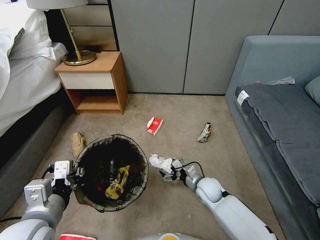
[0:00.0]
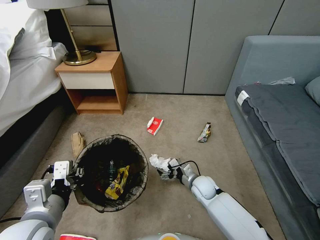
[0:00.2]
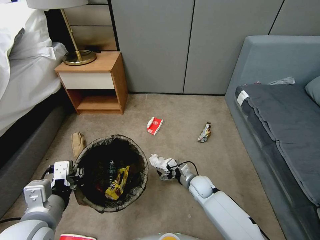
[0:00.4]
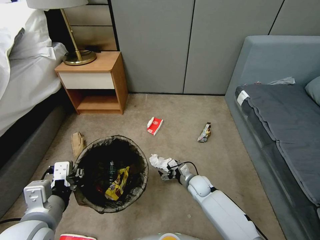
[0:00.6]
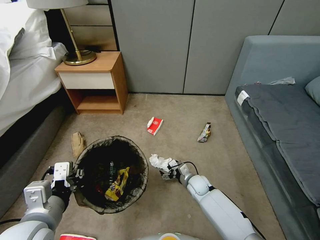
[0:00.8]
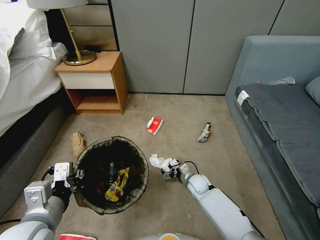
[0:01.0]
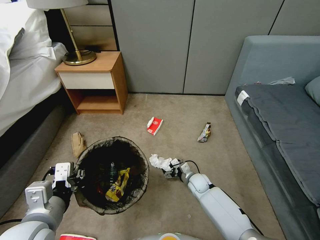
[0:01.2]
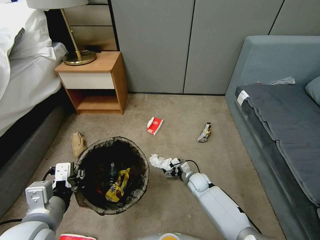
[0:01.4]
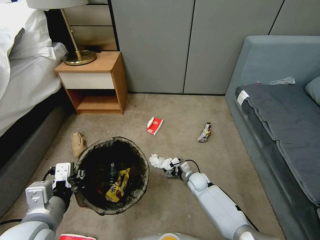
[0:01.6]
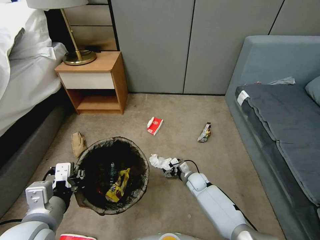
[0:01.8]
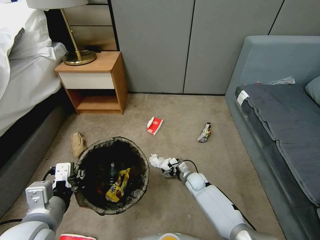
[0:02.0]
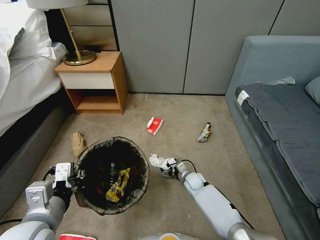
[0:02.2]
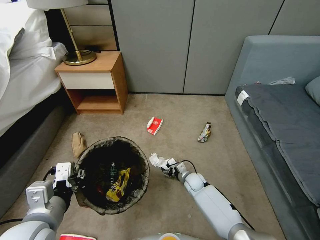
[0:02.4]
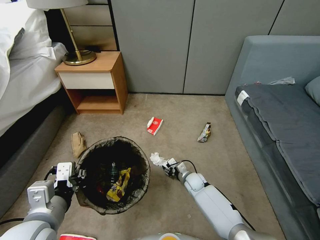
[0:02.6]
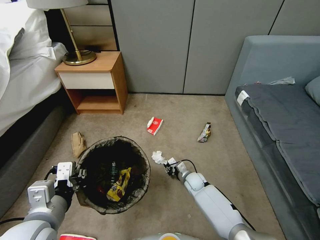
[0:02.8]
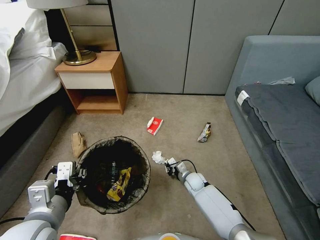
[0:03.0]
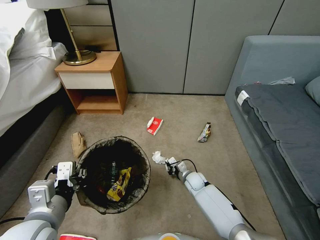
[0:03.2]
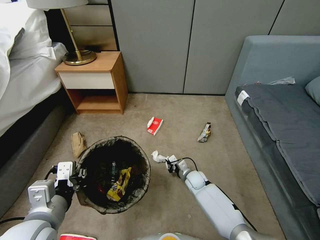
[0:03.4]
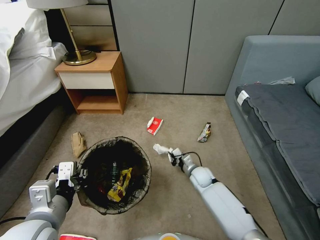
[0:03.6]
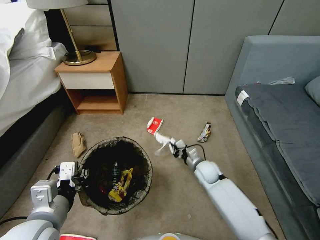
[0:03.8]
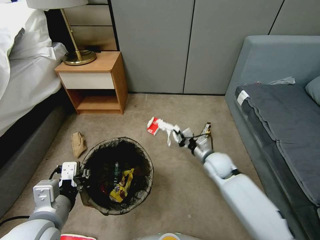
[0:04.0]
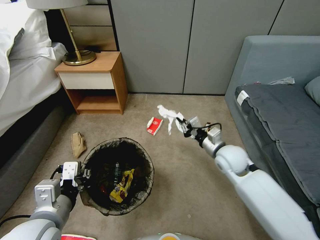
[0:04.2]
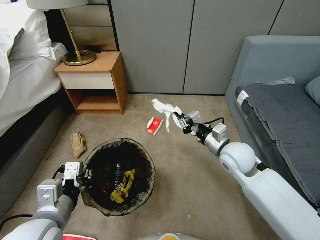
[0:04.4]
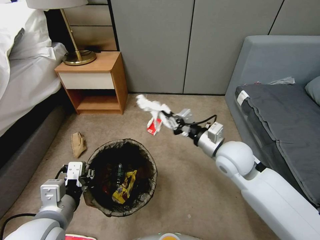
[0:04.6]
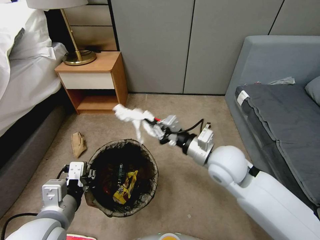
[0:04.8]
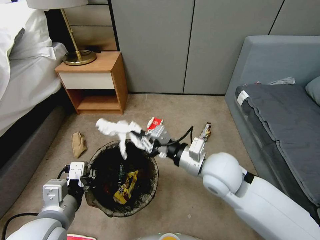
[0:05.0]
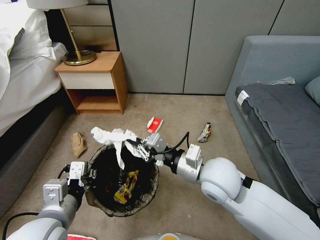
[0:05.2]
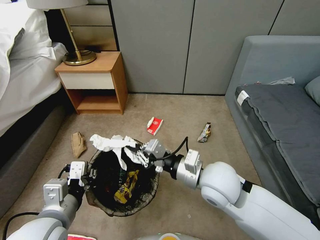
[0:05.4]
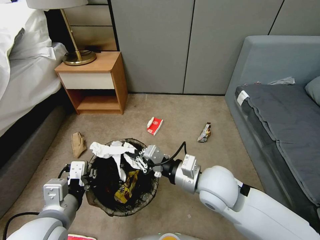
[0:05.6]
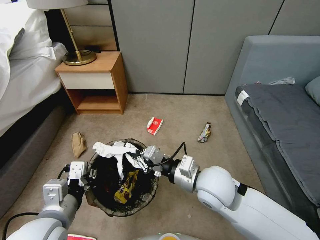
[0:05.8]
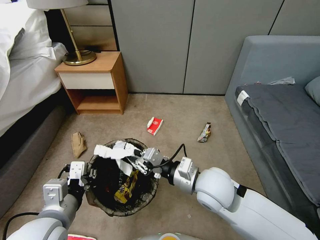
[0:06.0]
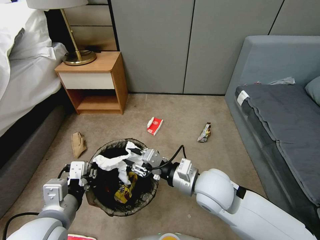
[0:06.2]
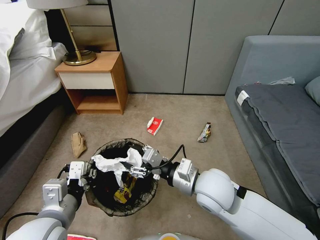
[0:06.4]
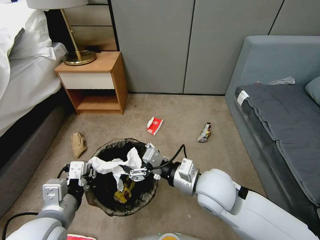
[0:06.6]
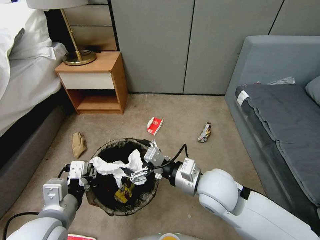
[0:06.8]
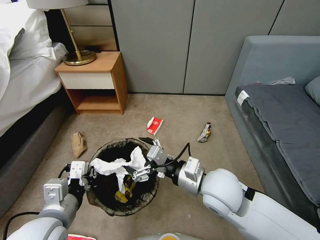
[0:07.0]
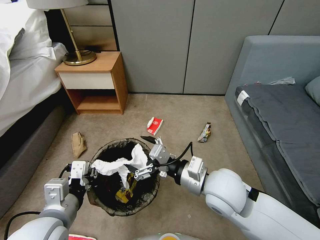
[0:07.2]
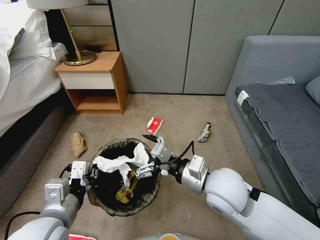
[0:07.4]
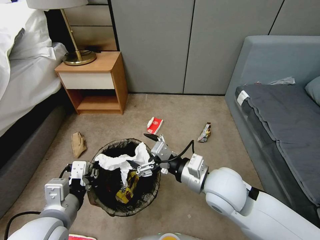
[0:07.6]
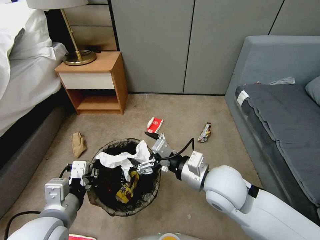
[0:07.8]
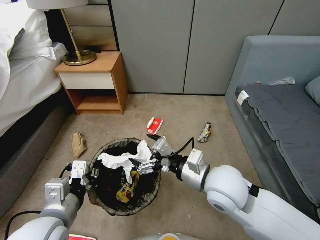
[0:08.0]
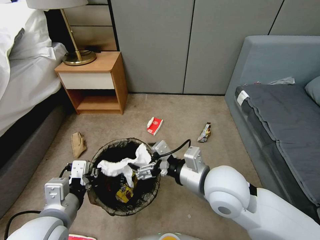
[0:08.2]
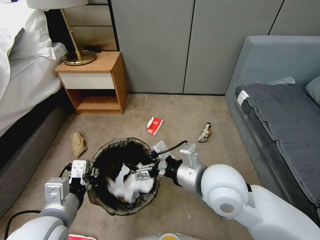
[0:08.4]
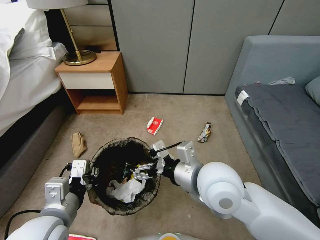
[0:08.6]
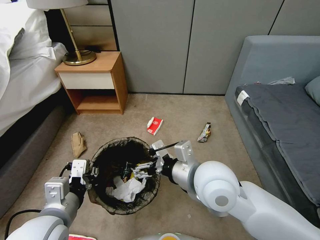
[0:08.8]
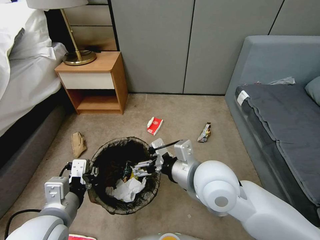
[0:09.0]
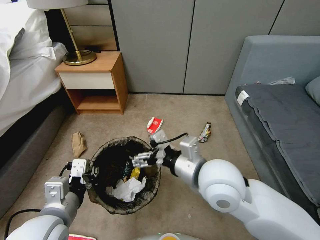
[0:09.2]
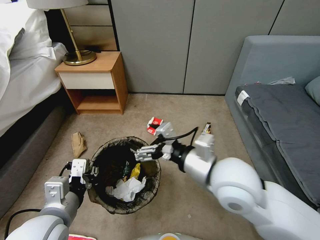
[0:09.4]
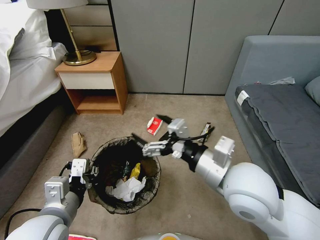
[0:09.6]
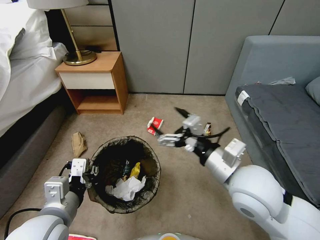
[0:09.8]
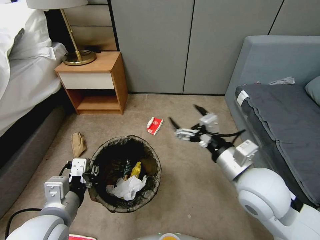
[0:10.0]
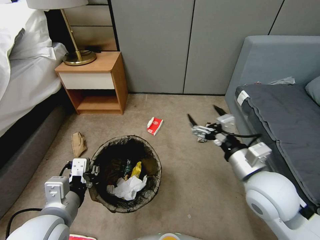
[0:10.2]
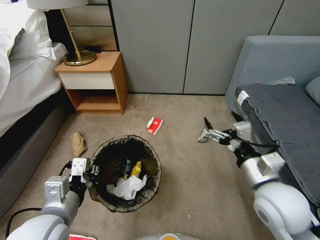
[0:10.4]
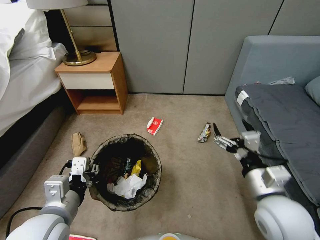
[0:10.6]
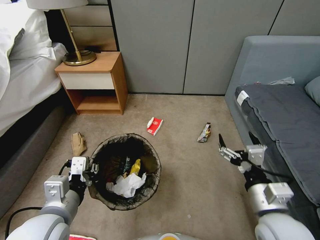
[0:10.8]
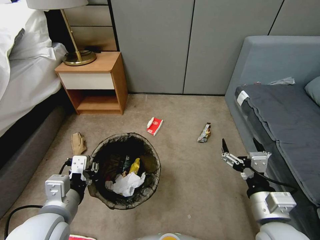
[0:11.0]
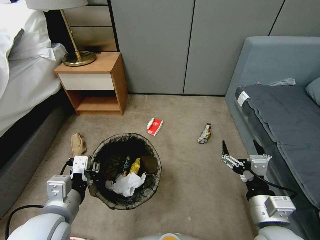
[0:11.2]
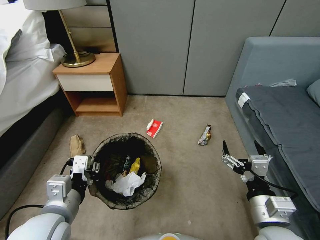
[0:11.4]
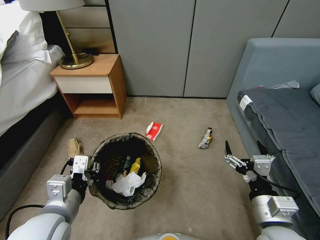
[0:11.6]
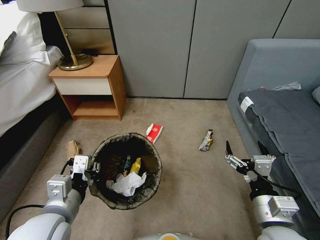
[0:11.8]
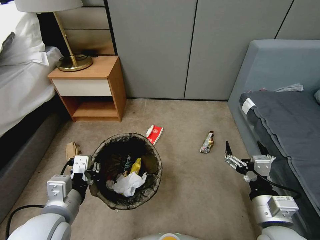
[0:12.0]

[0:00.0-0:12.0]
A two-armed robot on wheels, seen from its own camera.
Task of the whole recording: Pick up the trash bin, then pick up the garbage from the floor and place it into the trash bin.
0:00.0 to 0:01.6: The right gripper shifts approximately 10 cm downward and forward.
0:01.6 to 0:03.0: The right gripper closes its fingers.
0:03.0 to 0:04.4: The right gripper moves upward, about 30 cm.
0:04.4 to 0:06.0: The right gripper is displaced to the left and backward by about 15 cm.
0:06.0 to 0:07.6: The right gripper opens.
0:07.6 to 0:09.0: The right gripper shifts by approximately 5 cm.
0:09.0 to 0:10.4: The right gripper heads to the right, covering approximately 15 cm.
0:10.4 to 0:12.0: The right gripper is displaced backward and downward by about 10 cm.

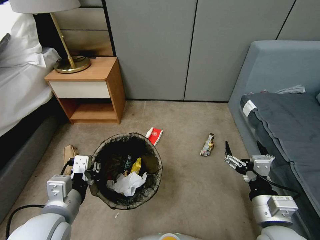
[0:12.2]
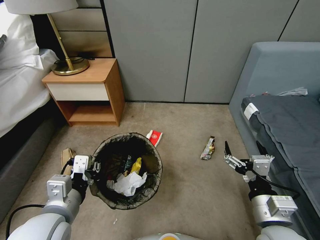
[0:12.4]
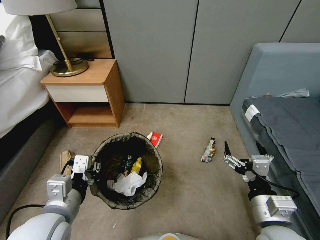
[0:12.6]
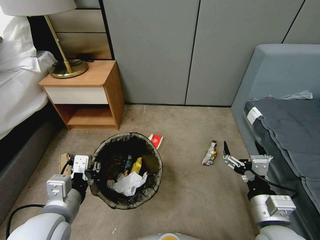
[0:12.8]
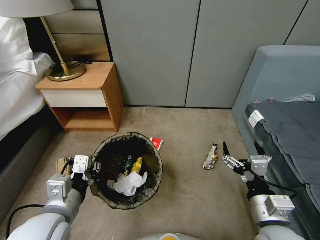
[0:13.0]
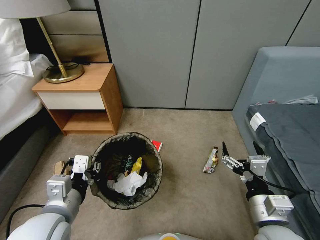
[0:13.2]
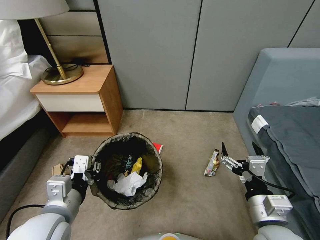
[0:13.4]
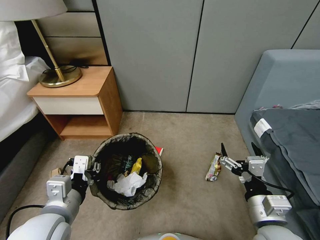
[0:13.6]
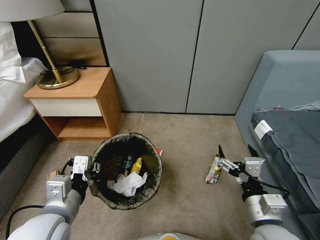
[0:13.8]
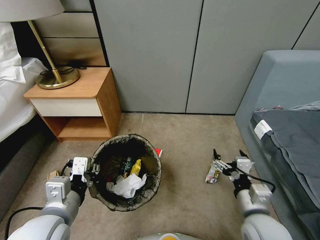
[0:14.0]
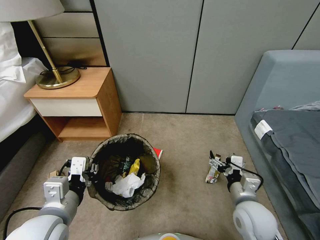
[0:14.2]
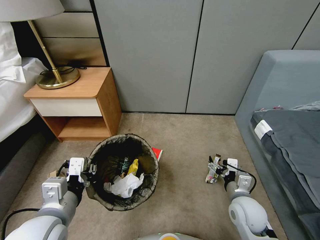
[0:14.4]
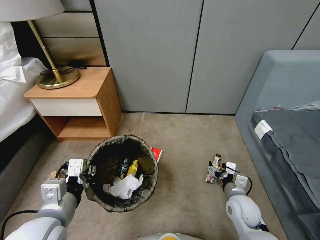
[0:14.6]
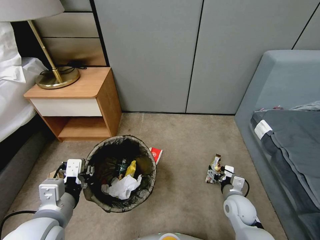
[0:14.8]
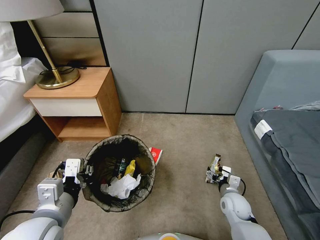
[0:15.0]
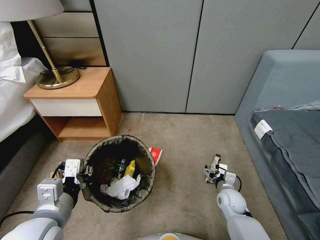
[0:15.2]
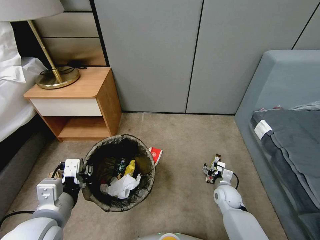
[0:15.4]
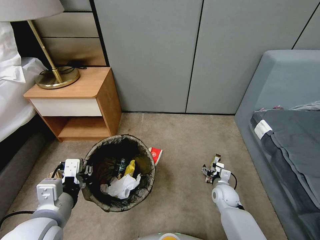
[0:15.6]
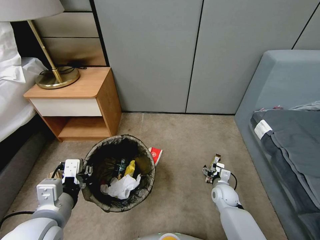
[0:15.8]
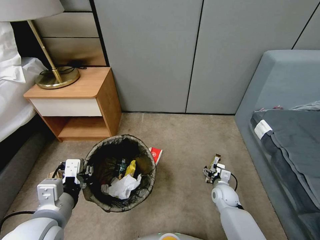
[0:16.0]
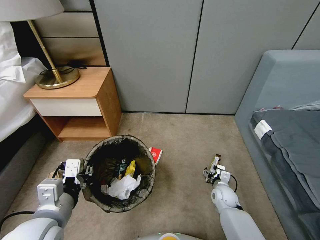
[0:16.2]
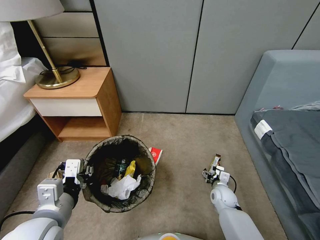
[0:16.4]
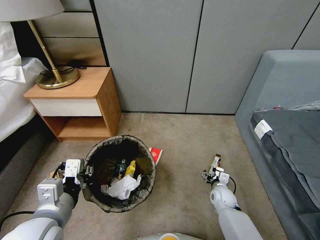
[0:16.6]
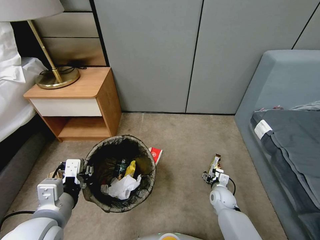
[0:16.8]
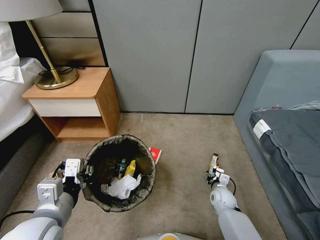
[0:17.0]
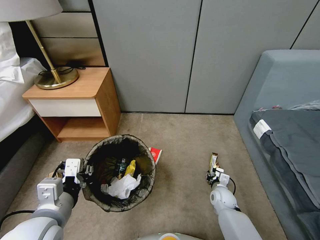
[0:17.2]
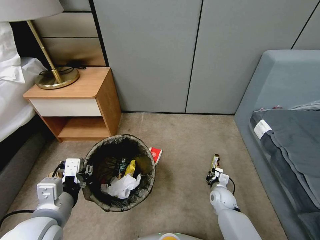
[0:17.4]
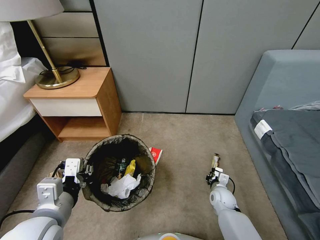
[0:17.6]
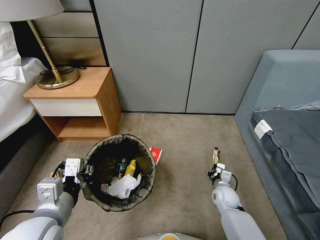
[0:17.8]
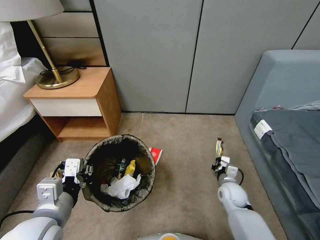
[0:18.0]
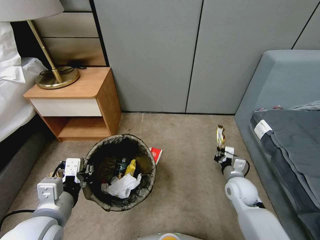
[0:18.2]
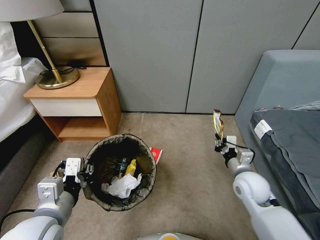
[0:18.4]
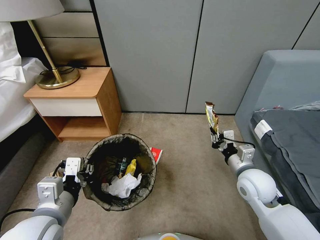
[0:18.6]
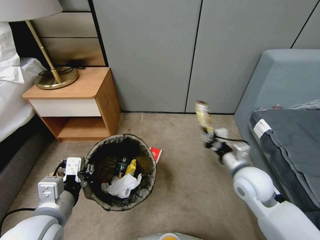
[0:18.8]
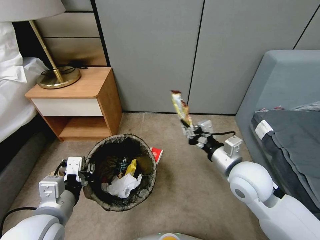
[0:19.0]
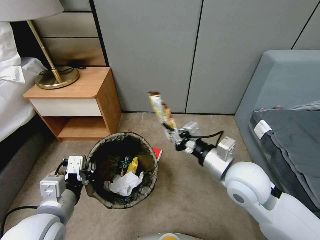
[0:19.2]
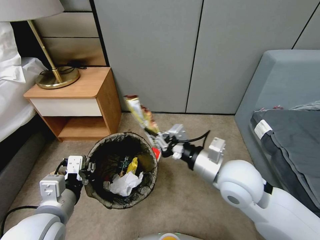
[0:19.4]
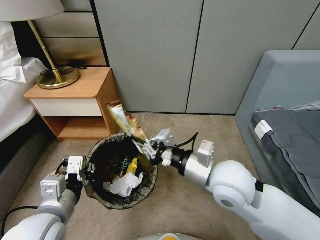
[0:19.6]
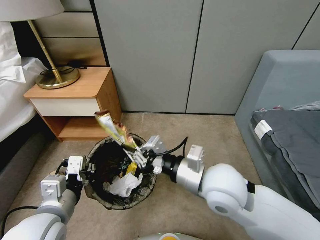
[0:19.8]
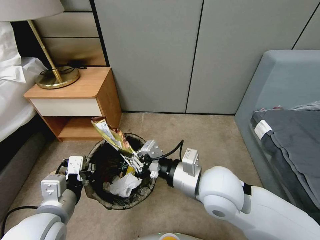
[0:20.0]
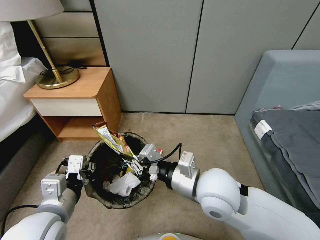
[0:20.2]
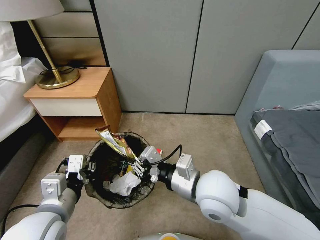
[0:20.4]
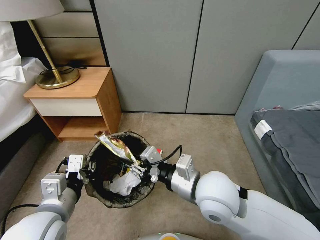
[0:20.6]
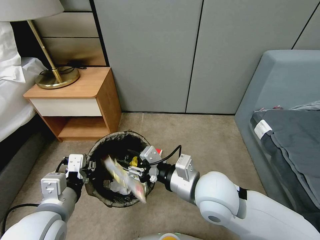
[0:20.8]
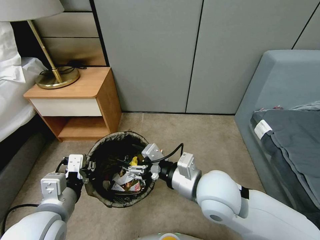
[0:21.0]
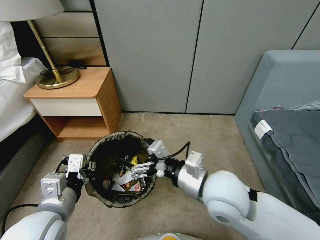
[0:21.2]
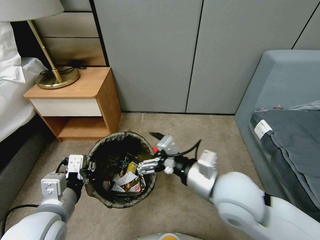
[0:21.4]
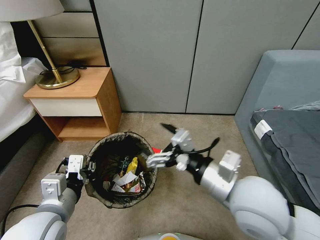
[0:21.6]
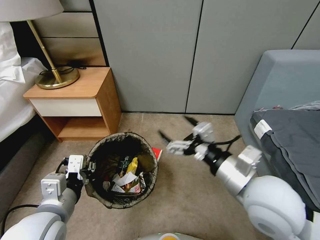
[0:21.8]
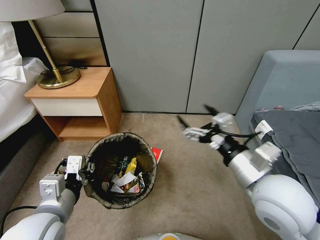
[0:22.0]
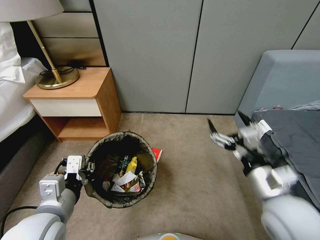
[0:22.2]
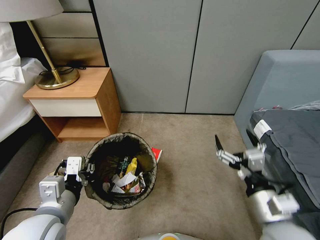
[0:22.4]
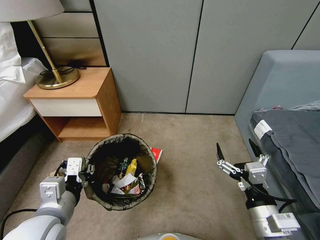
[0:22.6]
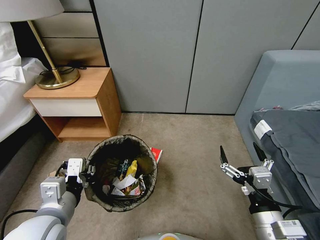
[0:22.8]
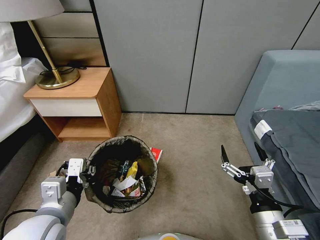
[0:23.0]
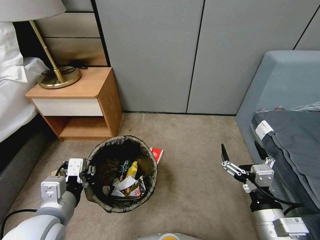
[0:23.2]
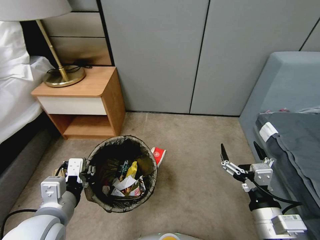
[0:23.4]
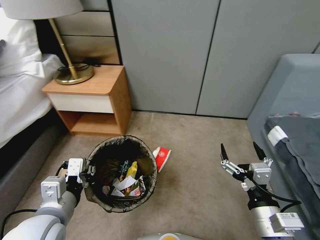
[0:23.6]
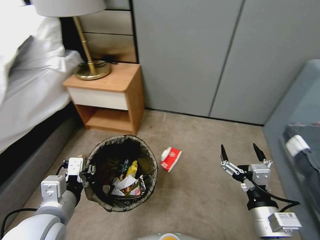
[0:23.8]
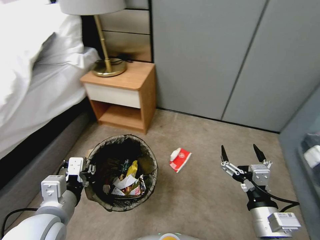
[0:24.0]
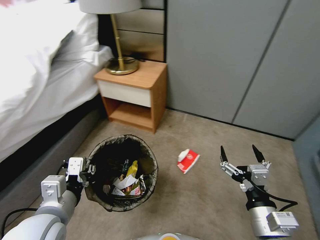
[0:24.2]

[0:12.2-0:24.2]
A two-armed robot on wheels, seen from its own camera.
Task of the whole recording: Pick up the trash bin, then pick up the garbage from the floor and place it into the trash bin.
0:13.8 to 0:15.2: The right gripper heads downward and forward, covering some 25 cm.
0:15.2 to 0:16.6: The right gripper shifts by roughly 5 cm.
0:16.6 to 0:18.2: The right gripper travels upward by approximately 15 cm, and closes.
0:18.2 to 0:19.8: The right gripper shifts about 25 cm upward and to the left.
0:19.8 to 0:21.2: The right gripper opens up.
0:21.2 to 0:22.6: The right gripper moves to the right, backward and downward, approximately 20 cm.
